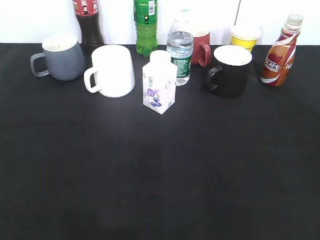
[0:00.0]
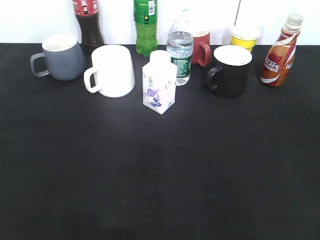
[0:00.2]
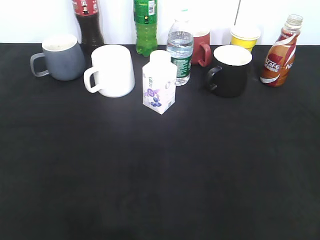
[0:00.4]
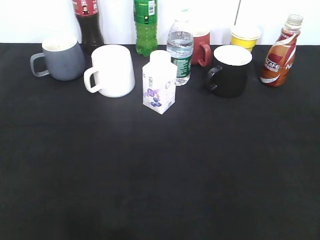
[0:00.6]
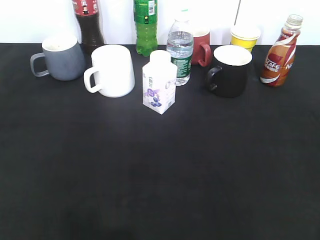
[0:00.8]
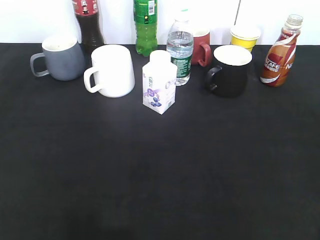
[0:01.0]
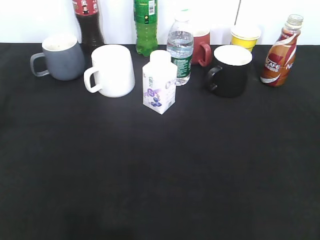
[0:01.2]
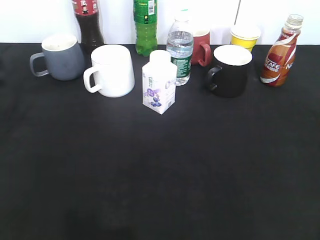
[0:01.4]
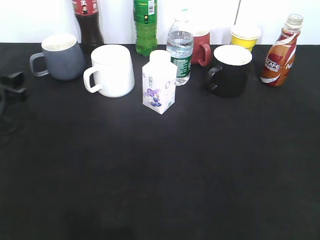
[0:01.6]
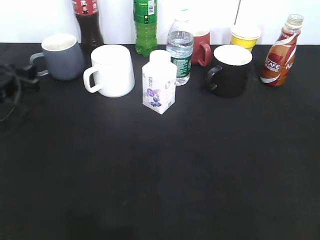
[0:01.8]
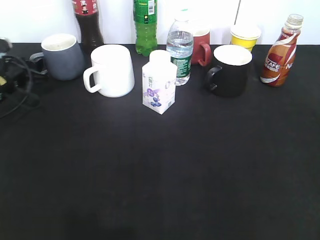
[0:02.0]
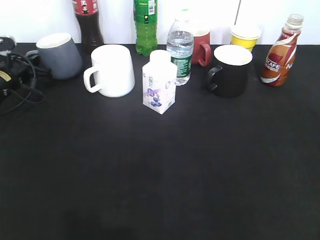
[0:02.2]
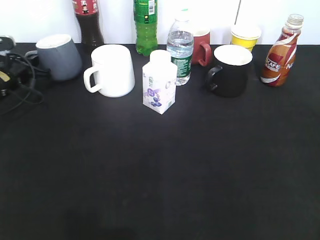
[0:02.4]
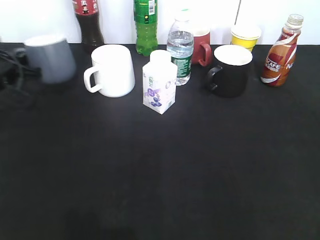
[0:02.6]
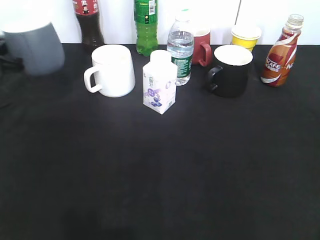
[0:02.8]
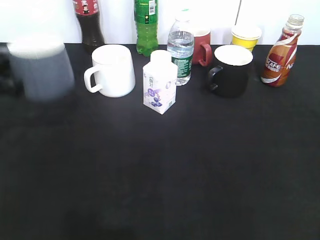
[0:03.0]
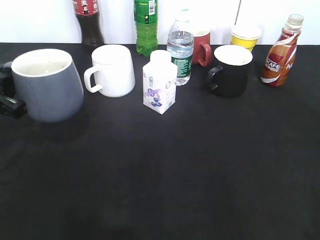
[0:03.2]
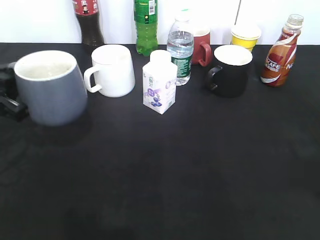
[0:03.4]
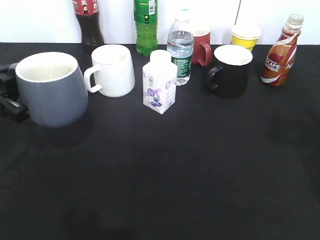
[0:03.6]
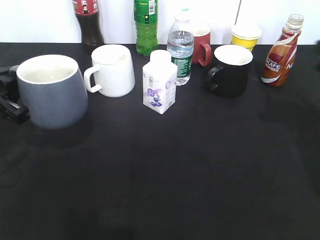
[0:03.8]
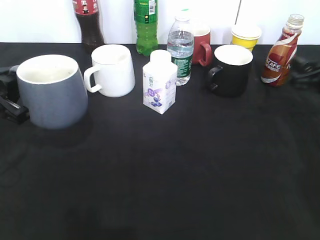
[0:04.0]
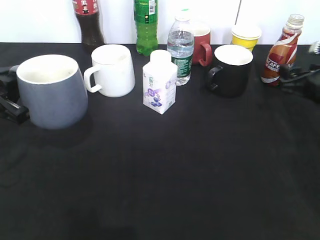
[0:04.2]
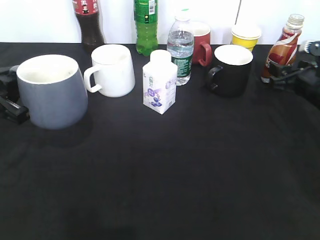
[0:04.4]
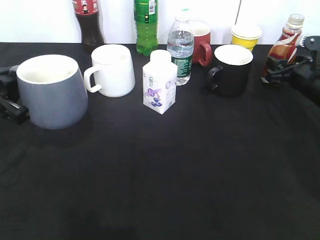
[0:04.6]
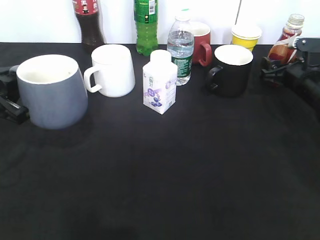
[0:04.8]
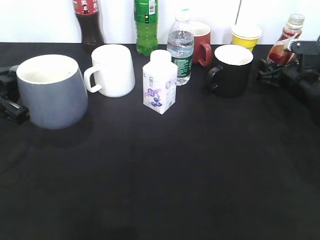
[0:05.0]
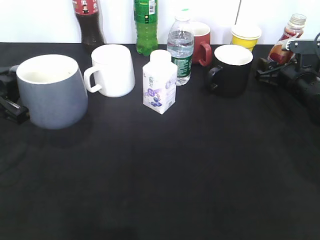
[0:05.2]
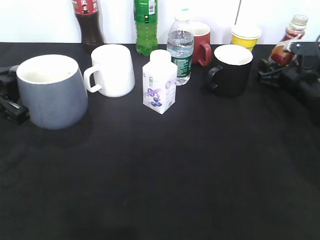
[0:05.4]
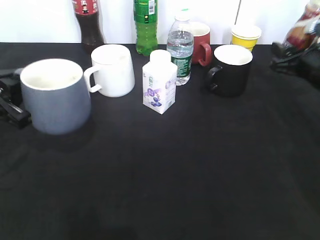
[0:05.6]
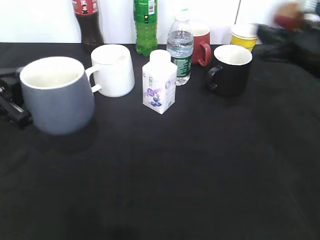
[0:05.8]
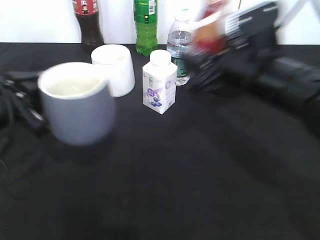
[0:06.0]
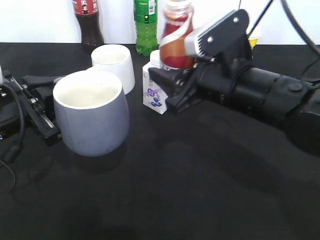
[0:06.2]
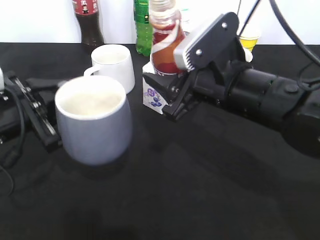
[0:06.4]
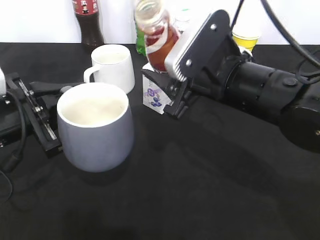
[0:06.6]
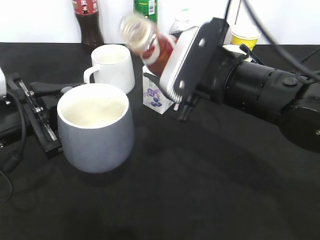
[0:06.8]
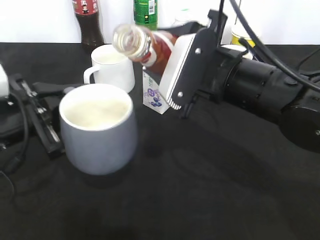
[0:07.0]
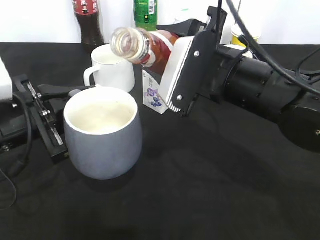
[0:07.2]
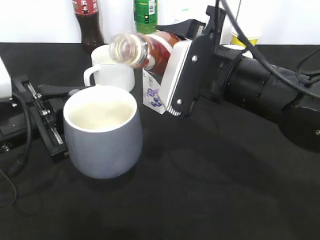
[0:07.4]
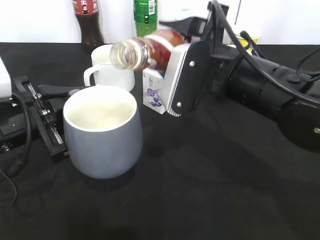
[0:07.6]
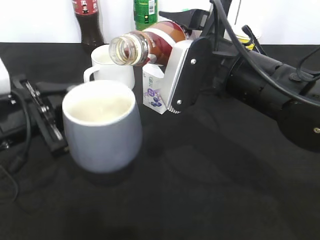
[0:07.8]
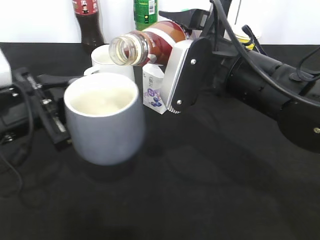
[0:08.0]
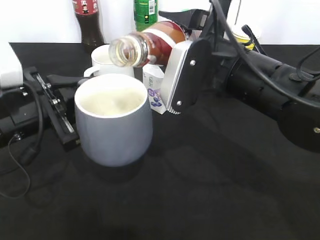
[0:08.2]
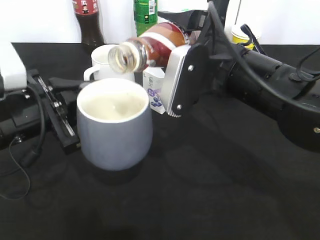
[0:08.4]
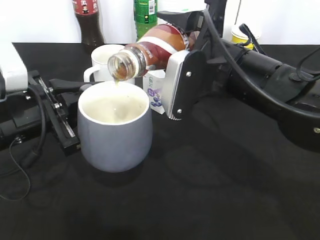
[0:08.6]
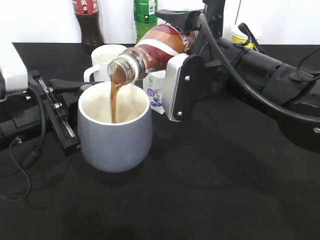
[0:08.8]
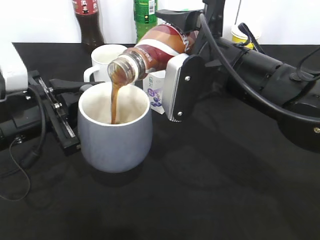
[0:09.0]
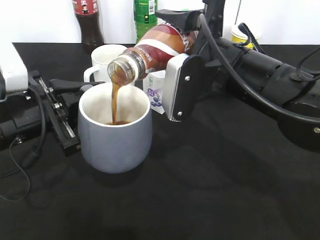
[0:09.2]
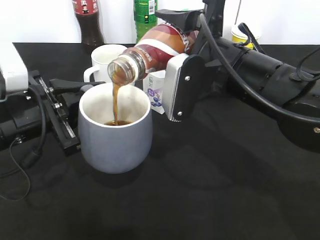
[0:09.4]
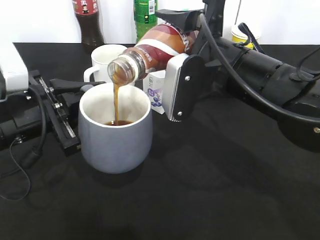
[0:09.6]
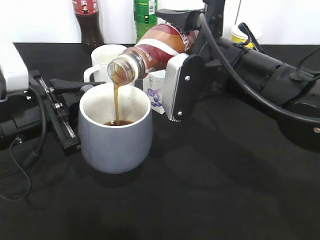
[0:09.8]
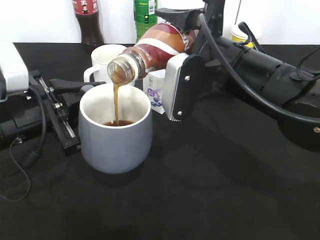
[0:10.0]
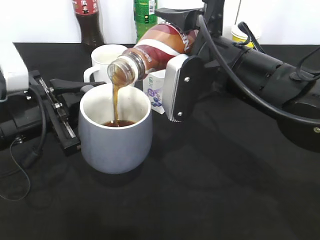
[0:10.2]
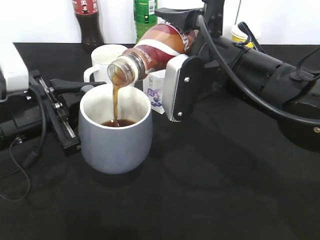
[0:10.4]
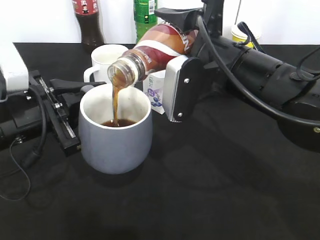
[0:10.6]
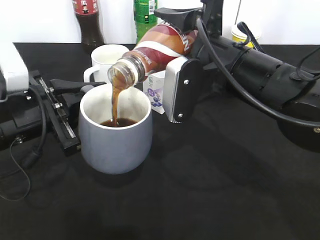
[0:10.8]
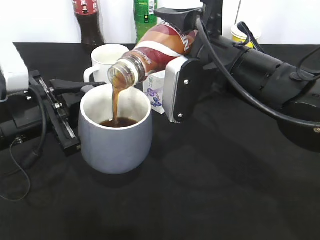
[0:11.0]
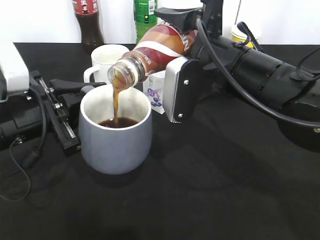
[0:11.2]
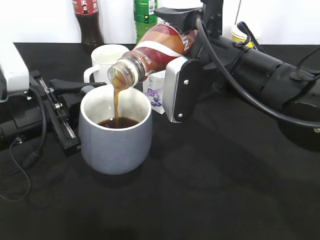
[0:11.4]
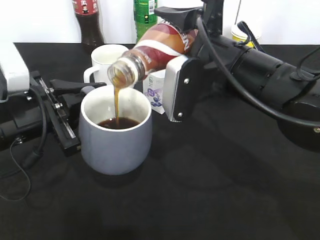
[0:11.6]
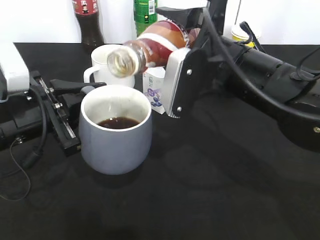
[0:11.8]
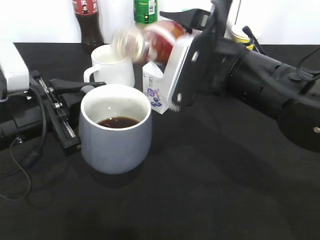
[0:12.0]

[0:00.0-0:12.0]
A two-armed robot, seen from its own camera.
Step, 0:00.0 to 0:02.2: Grasp the grey cup with left gripper.
Step, 0:02.6 to 0:03.8: Lift the grey cup with left gripper.
Step, 0:04.0 to 0:05.2: Grasp the bottle with coffee with right gripper.
Step, 0:05.4 to 0:12.0: Pour the coffee from bottle to cup with right gripper.
0:00.0 to 0:01.6: The left gripper shifts roughly 35 cm forward and downward.
0:01.6 to 0:03.0: The left gripper moves roughly 10 cm forward and comes back, and closes up.
0:03.0 to 0:04.4: The right gripper moves forward and downward, approximately 40 cm.
0:04.4 to 0:06.0: The right gripper moves to the left, upward and backward, roughly 20 cm.
0:07.6 to 0:09.0: The grippers make only small movements.
0:09.0 to 0:10.4: The two grippers keep their place.

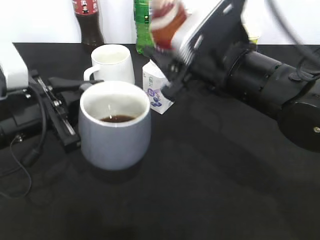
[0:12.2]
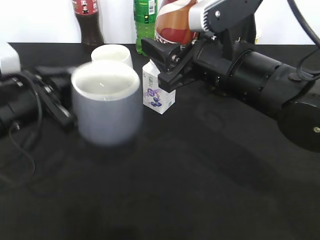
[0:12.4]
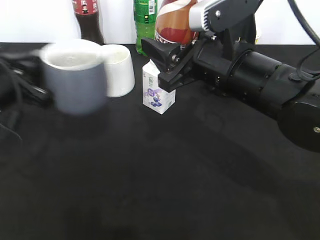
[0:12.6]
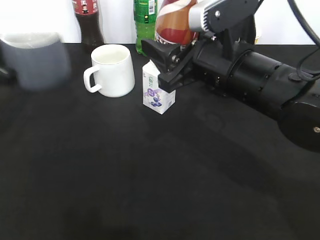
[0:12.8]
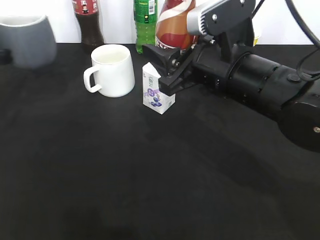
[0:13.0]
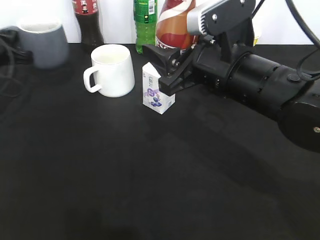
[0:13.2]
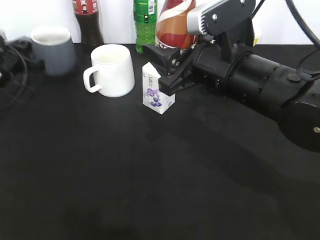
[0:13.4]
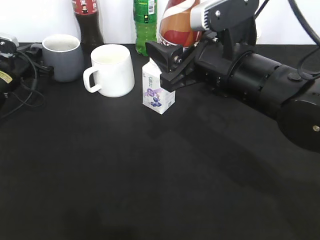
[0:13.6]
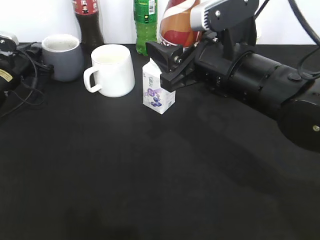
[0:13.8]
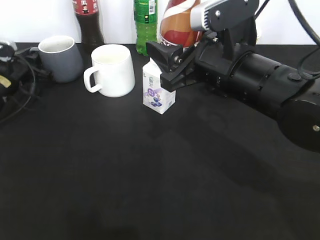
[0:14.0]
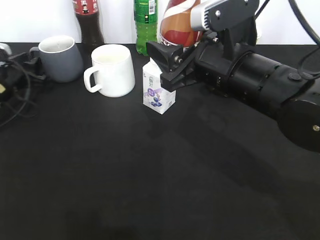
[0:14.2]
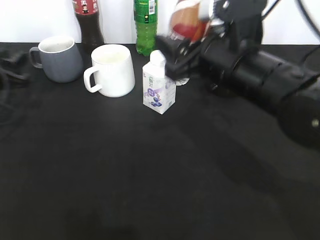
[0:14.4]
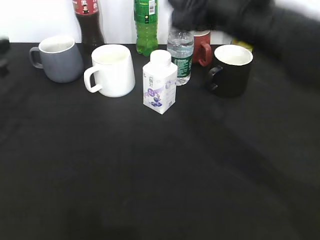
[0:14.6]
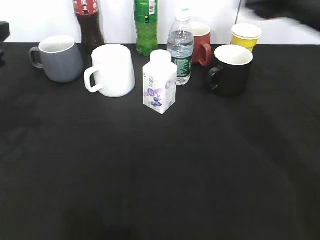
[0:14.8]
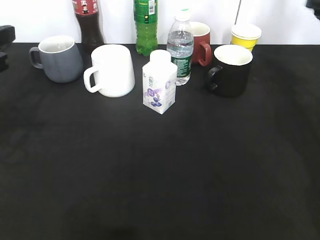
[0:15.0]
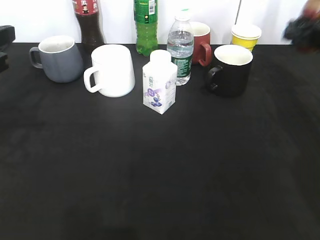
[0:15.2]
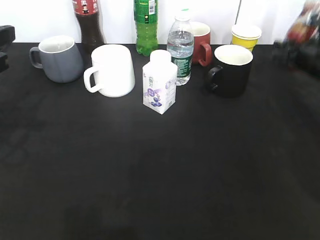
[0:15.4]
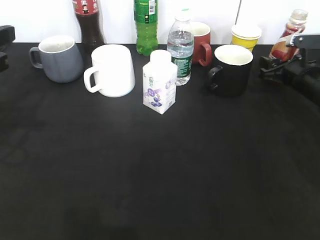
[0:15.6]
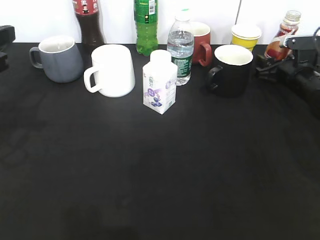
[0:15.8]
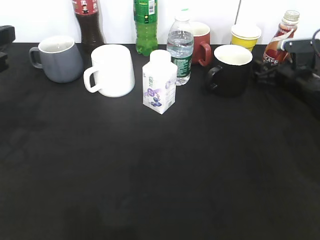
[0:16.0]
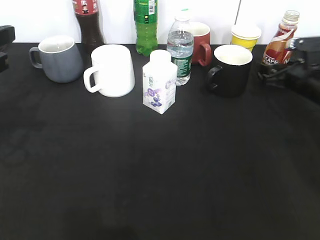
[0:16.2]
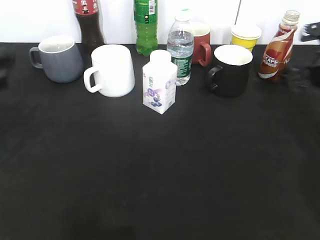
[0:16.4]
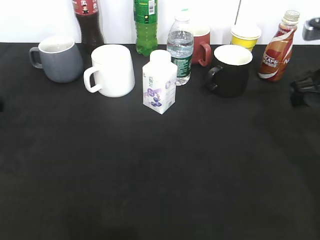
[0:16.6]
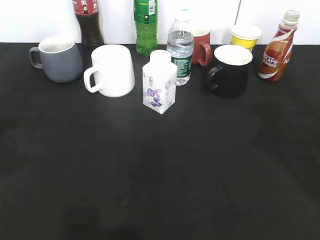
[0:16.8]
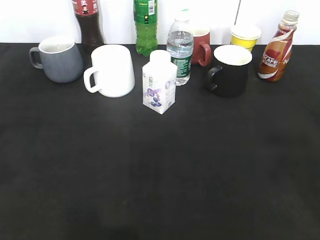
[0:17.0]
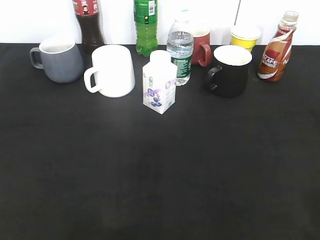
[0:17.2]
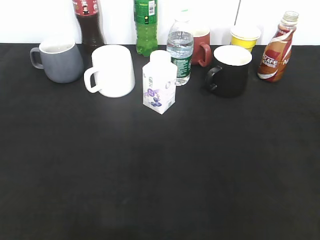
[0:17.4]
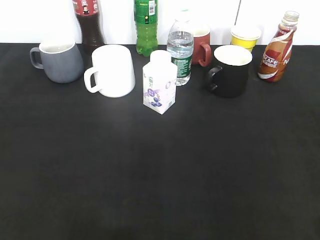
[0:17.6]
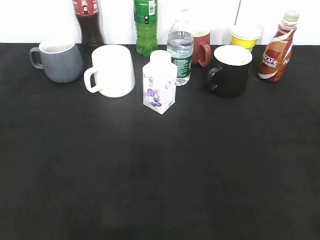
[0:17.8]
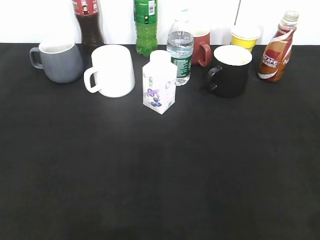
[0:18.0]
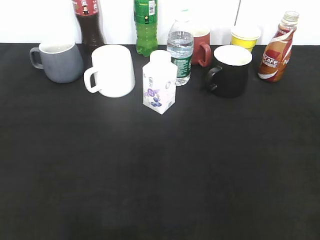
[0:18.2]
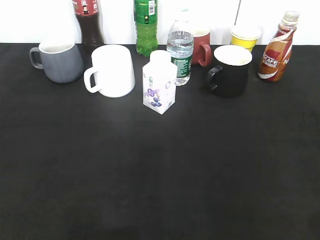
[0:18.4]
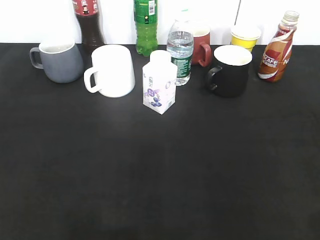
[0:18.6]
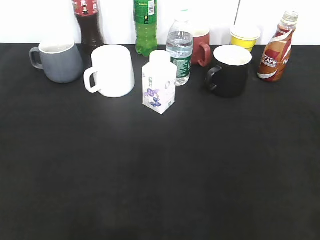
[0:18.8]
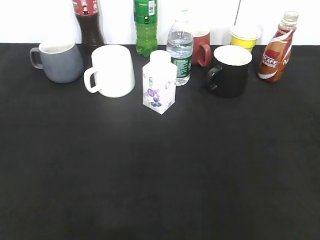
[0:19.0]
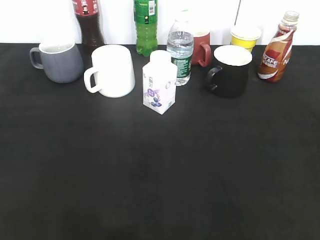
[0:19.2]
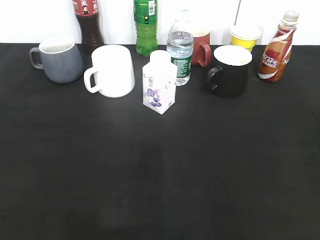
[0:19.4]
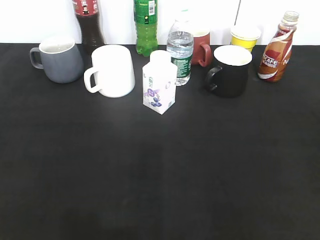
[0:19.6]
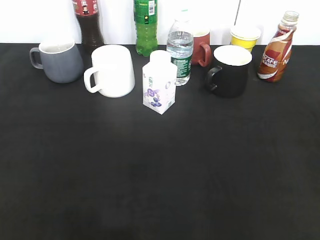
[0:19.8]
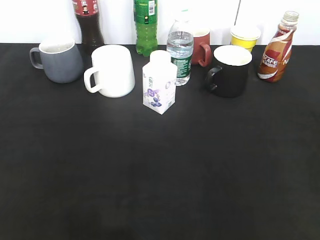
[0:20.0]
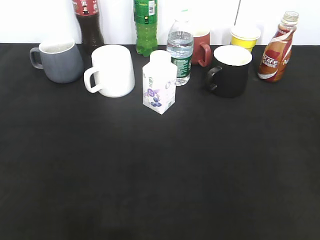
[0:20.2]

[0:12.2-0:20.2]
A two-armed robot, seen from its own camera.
Step, 0:12.2 to 0:14.4: Place the grey cup on the table with left gripper.
Step, 0:14.6 to 0:16.4: Place the coffee bottle on the table with right gripper.
0:12.2 to 0:13.8: The left gripper heads forward and to the left, covering some 25 cm.
0:13.8 to 0:15.4: The left gripper travels backward and upward by roughly 25 cm, and opens up, while the right gripper shifts some 25 cm to the right and forward.
0:15.4 to 0:17.0: The left gripper moves backward and upward, approximately 15 cm, while the right gripper heads backward and upward, covering roughly 40 cm.
0:17.0 to 0:18.6: The right gripper goes approximately 15 cm downward and backward; the left gripper travels backward and downward by approximately 10 cm, and opens its fingers.

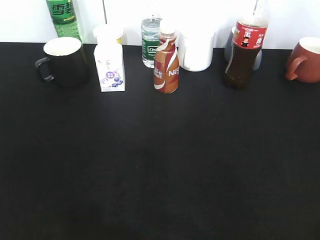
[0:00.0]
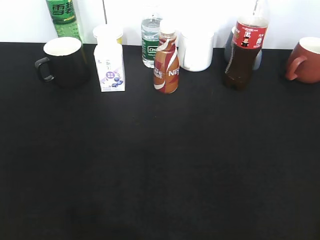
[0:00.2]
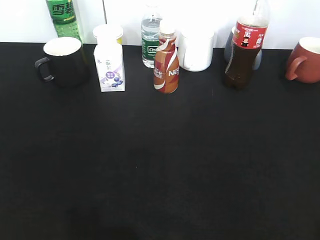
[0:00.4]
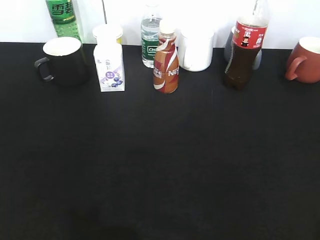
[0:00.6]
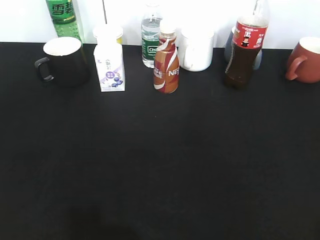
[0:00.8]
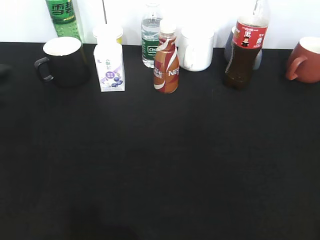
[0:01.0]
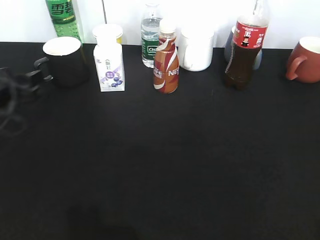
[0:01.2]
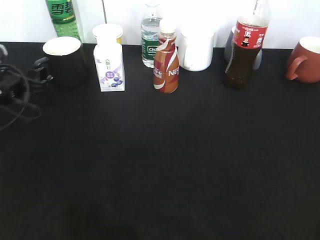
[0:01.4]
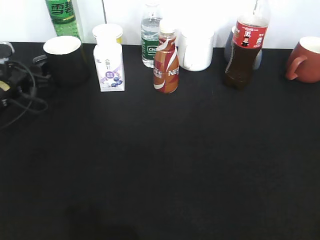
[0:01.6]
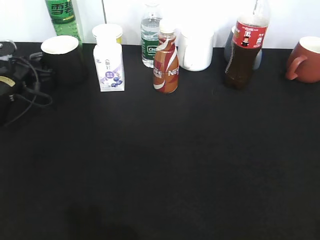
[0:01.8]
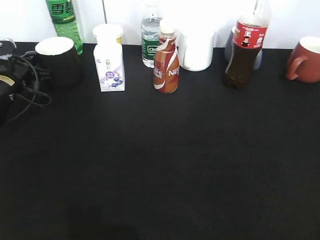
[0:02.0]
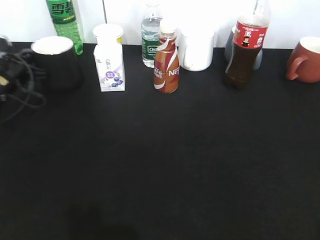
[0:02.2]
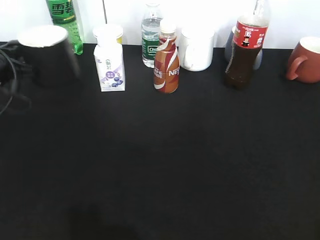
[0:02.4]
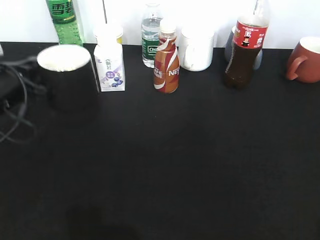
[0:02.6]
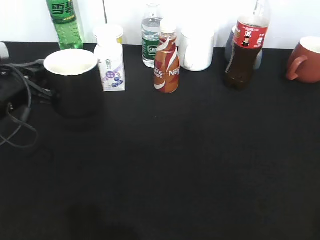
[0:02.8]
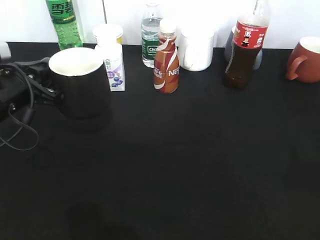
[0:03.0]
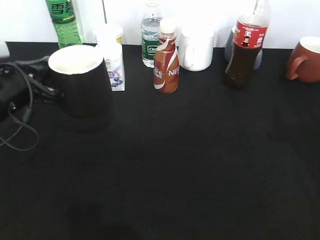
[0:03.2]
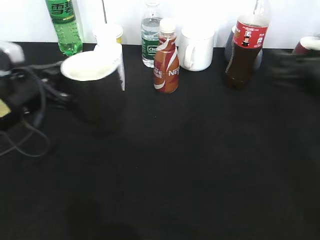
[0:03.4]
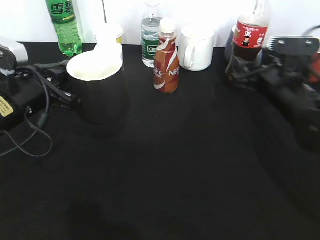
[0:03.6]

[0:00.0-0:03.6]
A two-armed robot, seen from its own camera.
Step, 0:00.0 to 0:02.0: Grasp the black cup with left gripper.
Step, 0:02.2 to 0:03.0: Lift the black cup with left gripper.
0:00.0 to 0:01.8: The left gripper heads forward and downward, covering about 40 cm, and closes up.
0:01.8 to 0:03.6: The left gripper is displaced backward, to the right and upward by approximately 15 cm, and closes up; the right gripper shifts approximately 35 cm forward and downward.
